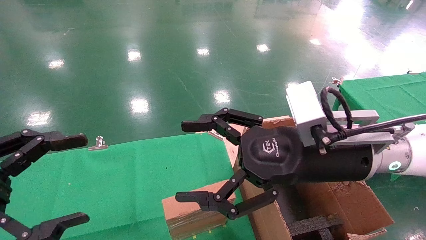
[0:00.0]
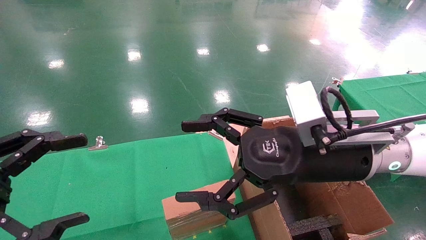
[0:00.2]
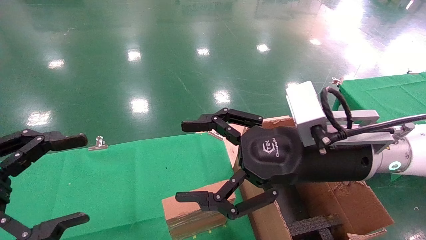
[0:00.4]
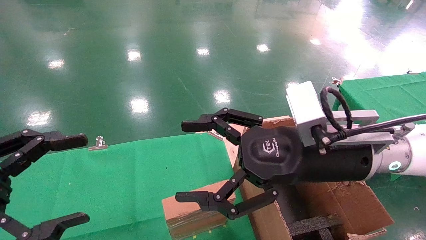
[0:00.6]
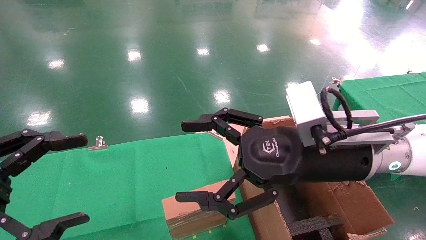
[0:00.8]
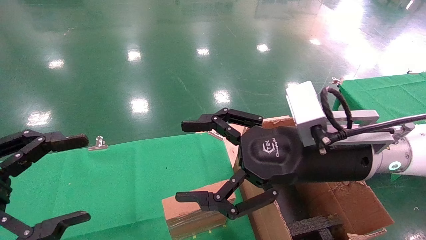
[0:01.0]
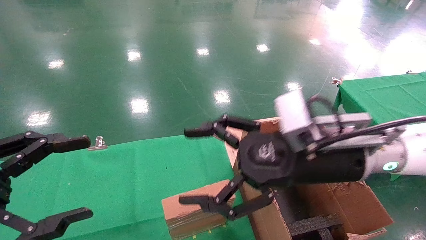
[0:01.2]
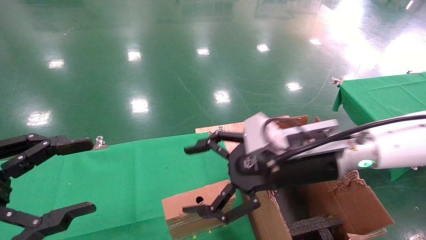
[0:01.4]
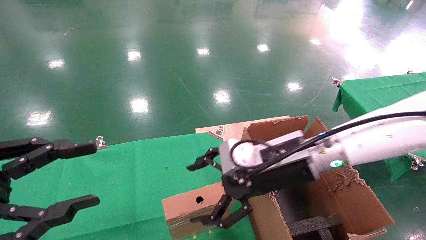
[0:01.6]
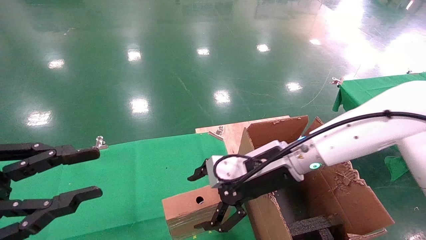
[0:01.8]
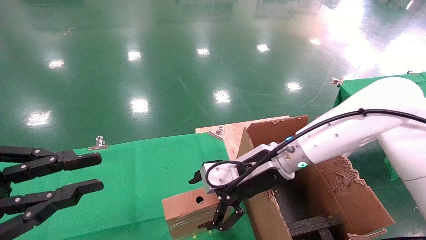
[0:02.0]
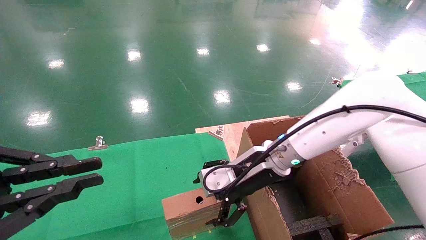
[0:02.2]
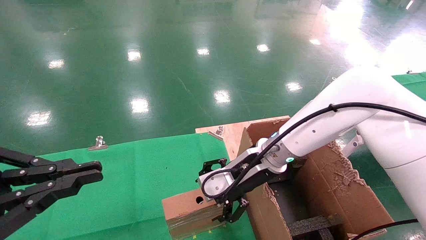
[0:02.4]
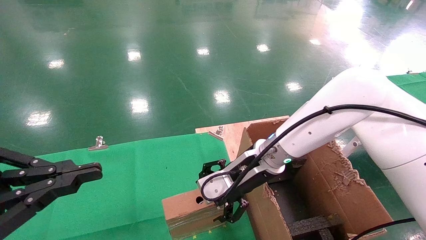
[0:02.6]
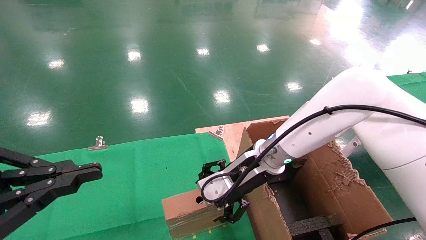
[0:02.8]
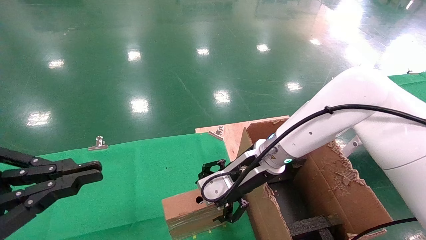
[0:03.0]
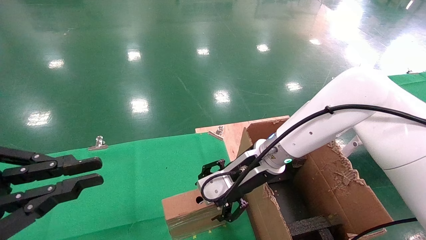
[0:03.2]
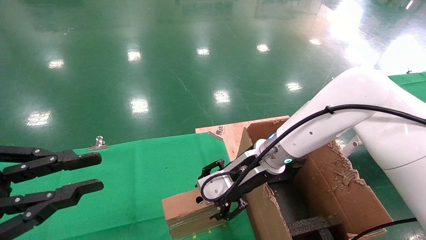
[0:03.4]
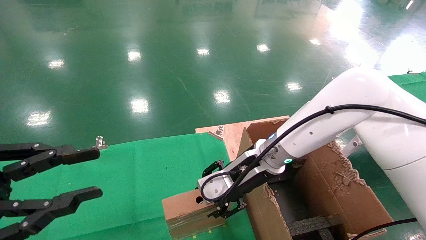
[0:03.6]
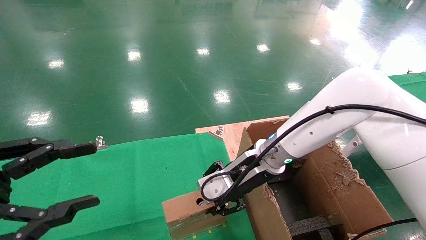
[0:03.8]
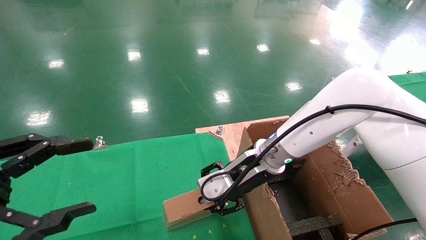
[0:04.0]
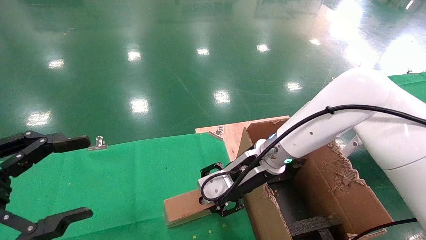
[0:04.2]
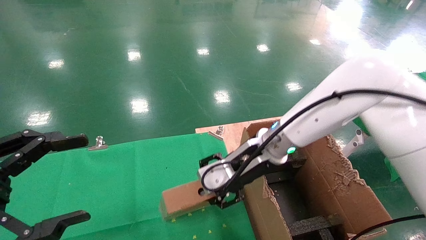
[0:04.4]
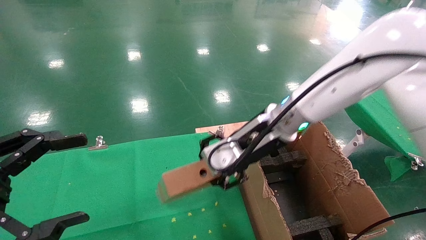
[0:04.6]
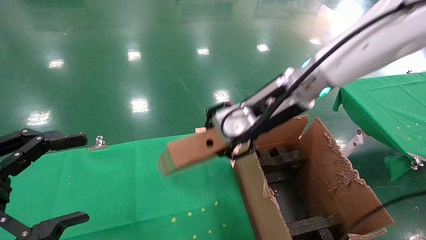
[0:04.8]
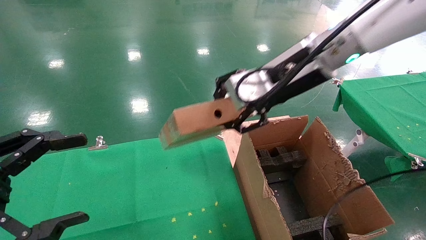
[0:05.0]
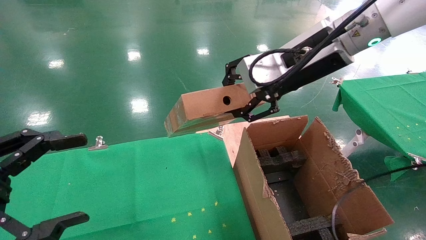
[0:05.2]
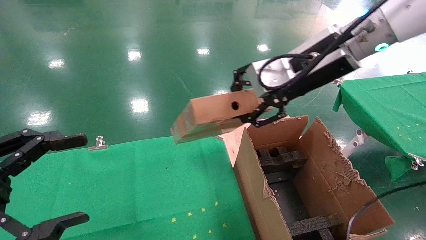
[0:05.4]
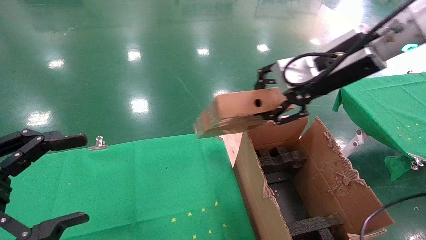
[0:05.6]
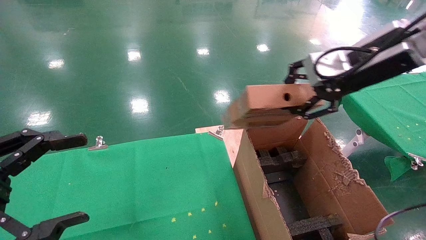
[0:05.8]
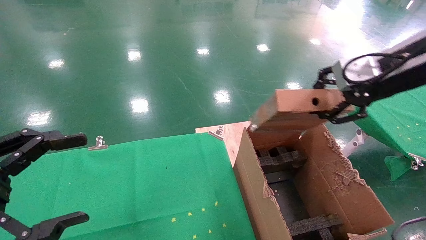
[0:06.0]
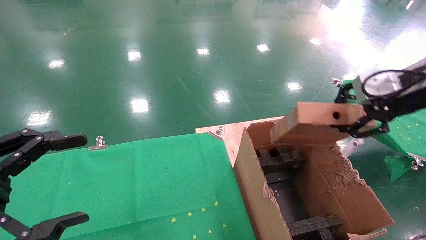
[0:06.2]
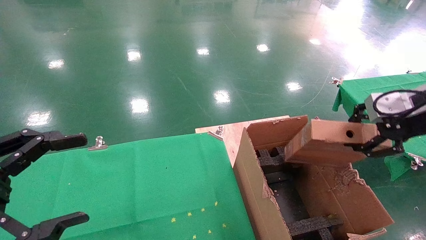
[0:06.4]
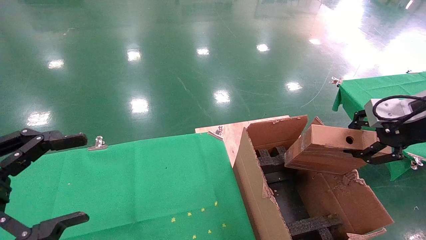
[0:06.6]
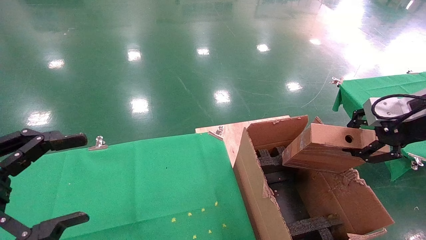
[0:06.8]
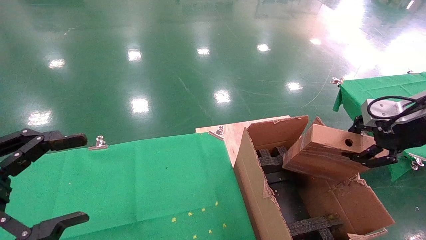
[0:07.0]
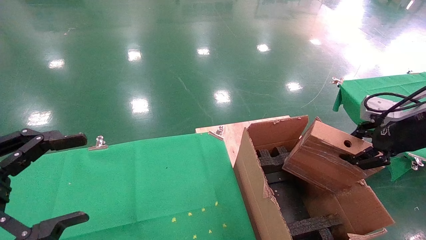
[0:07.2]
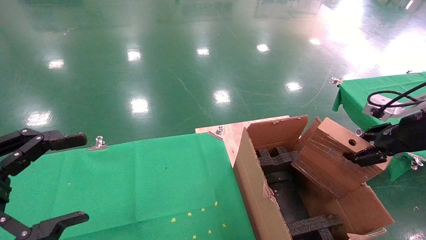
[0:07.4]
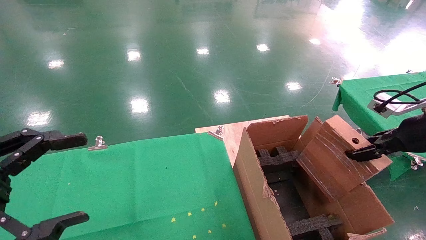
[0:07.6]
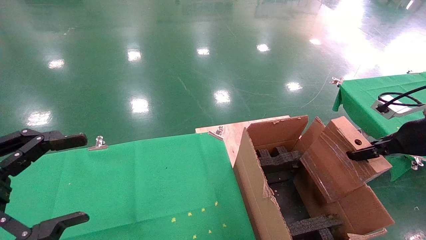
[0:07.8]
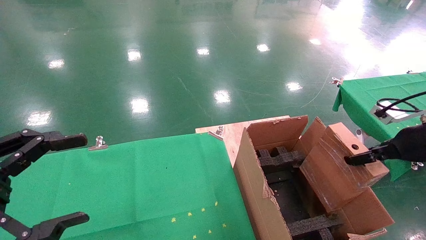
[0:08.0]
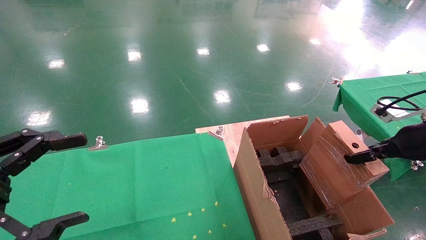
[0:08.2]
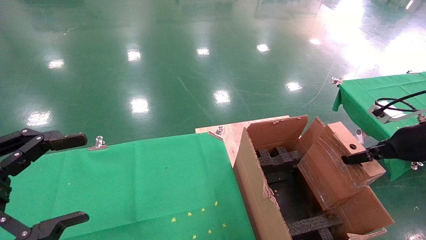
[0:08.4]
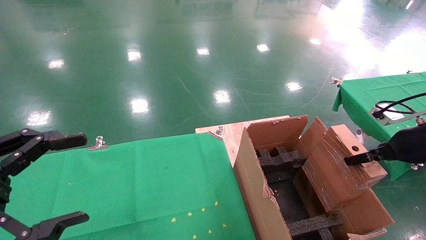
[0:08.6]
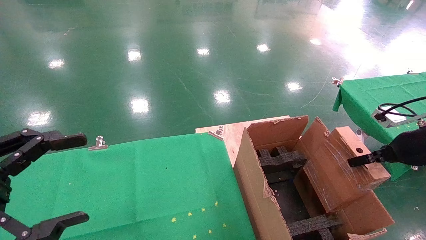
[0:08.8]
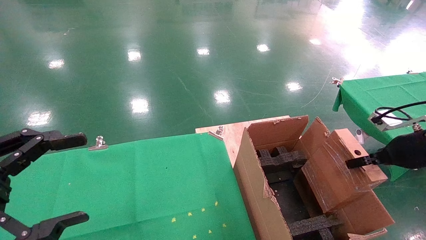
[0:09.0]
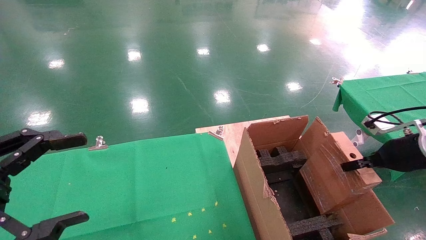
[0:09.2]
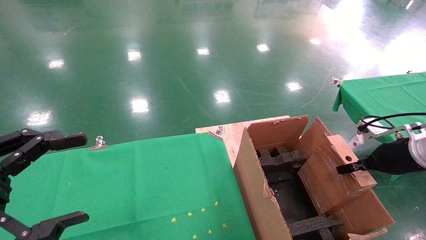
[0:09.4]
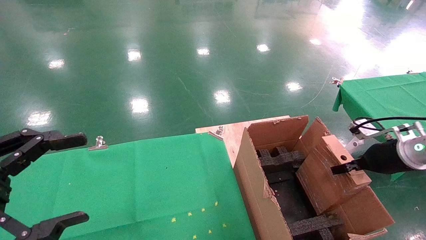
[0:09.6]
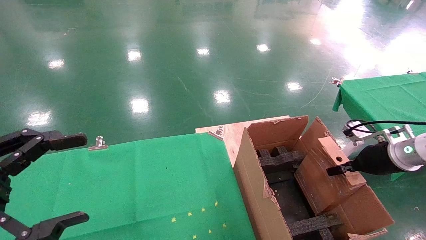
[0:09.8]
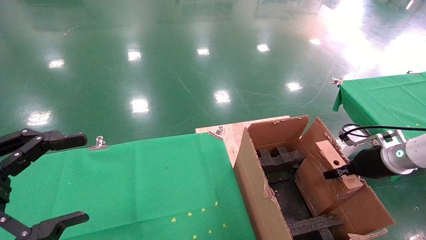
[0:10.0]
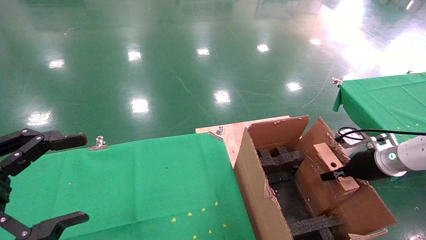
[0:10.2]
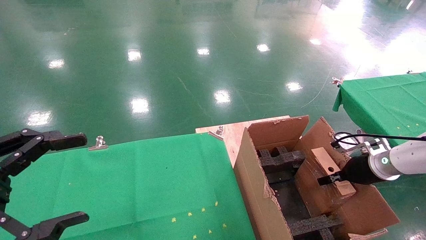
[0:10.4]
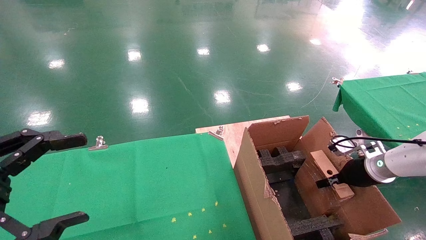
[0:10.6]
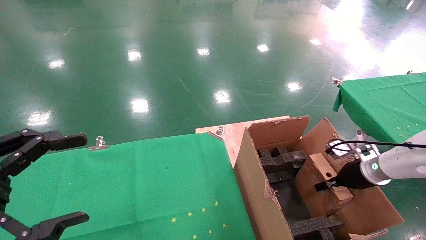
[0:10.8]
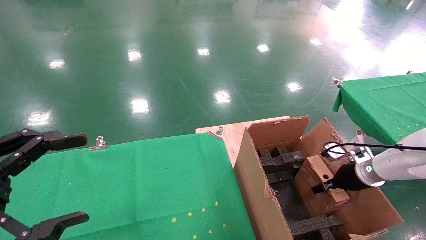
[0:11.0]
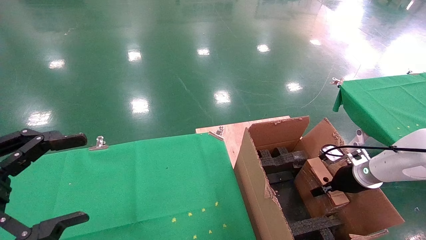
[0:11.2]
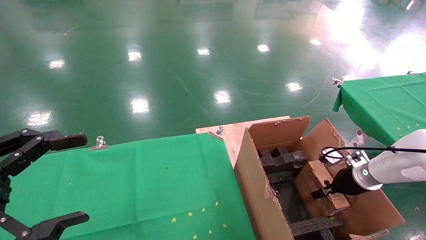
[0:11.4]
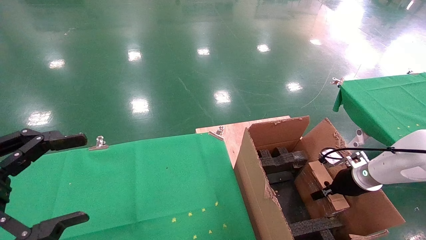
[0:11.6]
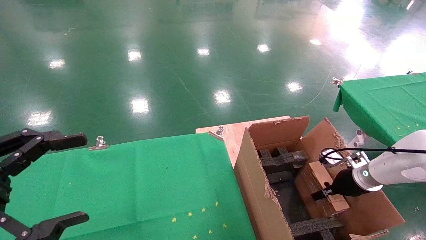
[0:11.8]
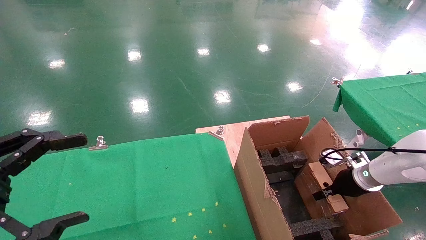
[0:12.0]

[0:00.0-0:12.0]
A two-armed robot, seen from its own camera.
Task of the whole recording: using a robotic arm to pick up a cardboard box and palace it the carton.
Step, 0:01.4 to 0:03.8: Pick up the mouse and the power cord paper box.
0:00.0 to 0:01.6: The right gripper heads forward, covering approximately 5 cm.
0:01.6 to 0:03.0: The right gripper moves forward, some 5 cm. Meanwhile the left gripper closes.
0:03.0 to 0:04.4: The right gripper closes its fingers; the left gripper opens.
0:04.4 to 0:06.0: The right gripper heads to the right and upward, covering approximately 25 cm.
0:06.0 to 0:07.6: The right gripper travels downward and to the right by approximately 15 cm.
0:07.6 to 0:09.0: The right gripper heads downward, covering some 5 cm.
0:09.0 to 0:10.4: The right gripper travels downward and forward by about 10 cm.
0:10.4 to 0:12.0: The right gripper is displaced downward by roughly 5 cm.

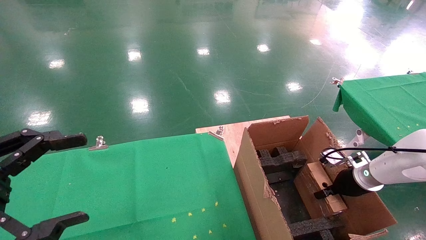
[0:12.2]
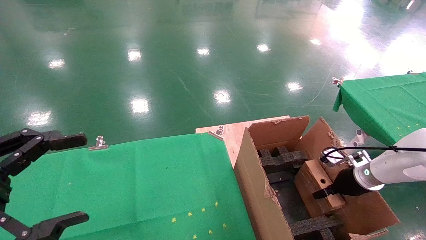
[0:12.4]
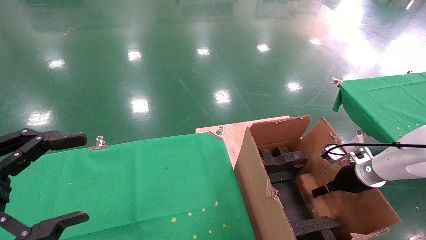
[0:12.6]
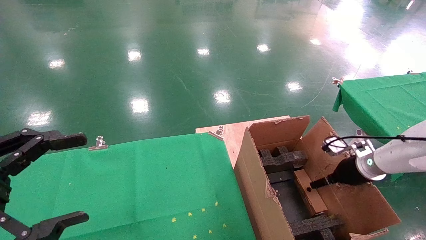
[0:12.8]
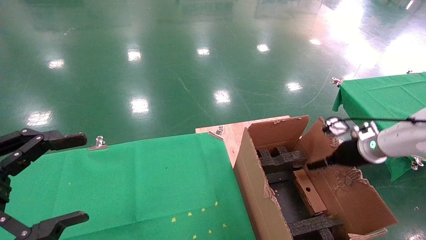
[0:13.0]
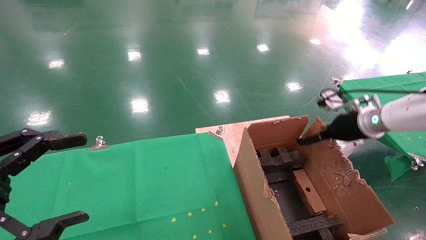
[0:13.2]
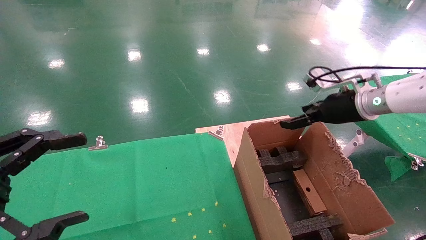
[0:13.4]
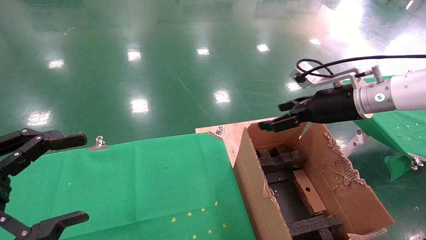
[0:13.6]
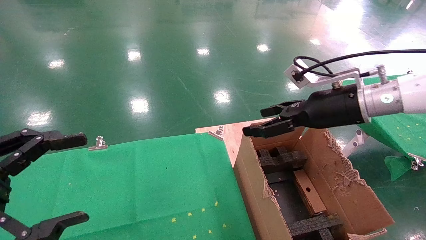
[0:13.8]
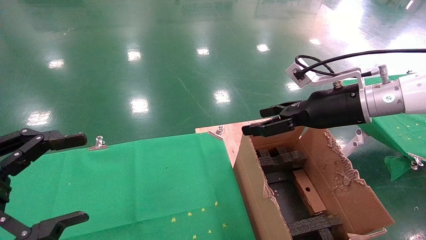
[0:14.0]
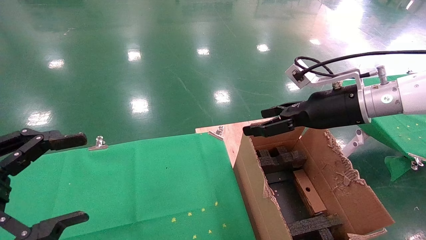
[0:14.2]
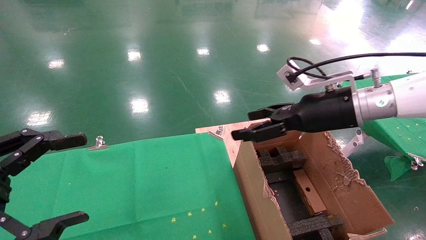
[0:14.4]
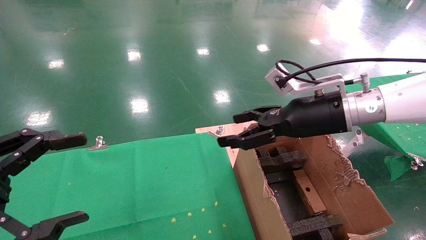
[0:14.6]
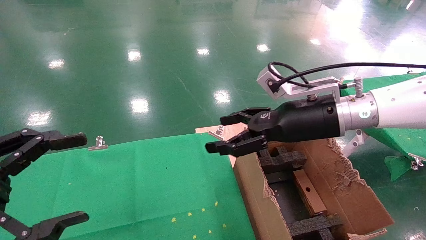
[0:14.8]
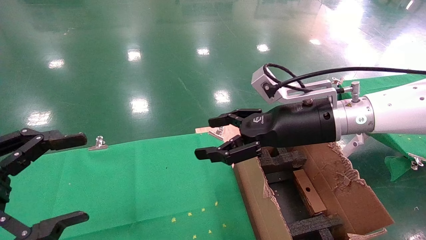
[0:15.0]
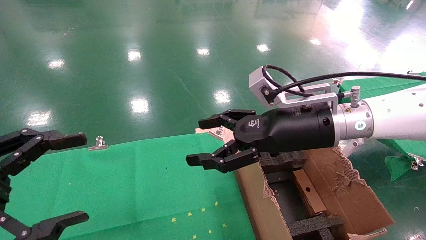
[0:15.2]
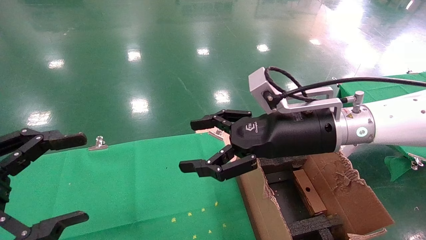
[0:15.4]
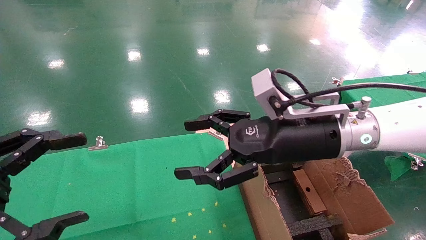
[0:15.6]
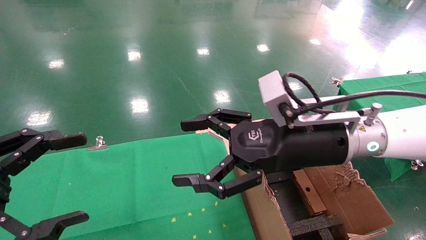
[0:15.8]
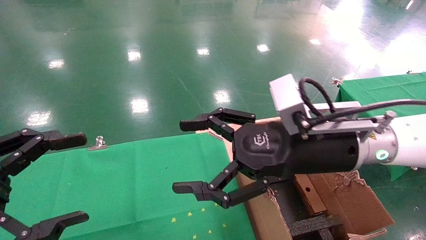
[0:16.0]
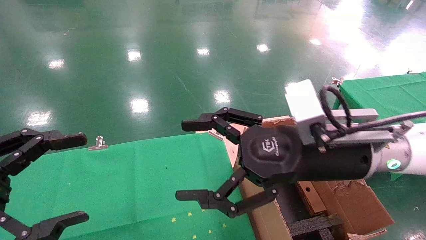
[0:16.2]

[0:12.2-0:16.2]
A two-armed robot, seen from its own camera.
Task of the whole recording: using a robotic arm to pick up a cardboard box and palace it the carton.
0:12.2 to 0:13.6: The right gripper goes some 25 cm upward and to the left, and opens.
0:13.6 to 0:14.8: The right gripper shifts approximately 10 cm to the left.
0:14.8 to 0:16.2: The right gripper goes approximately 10 cm backward.
